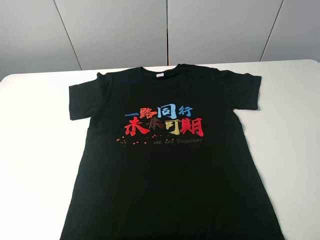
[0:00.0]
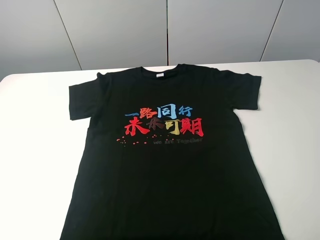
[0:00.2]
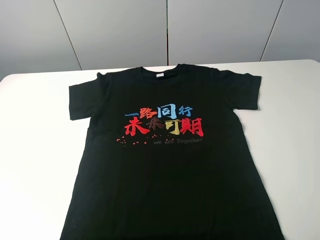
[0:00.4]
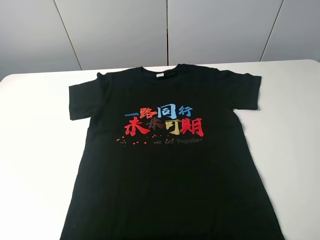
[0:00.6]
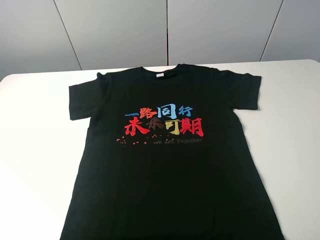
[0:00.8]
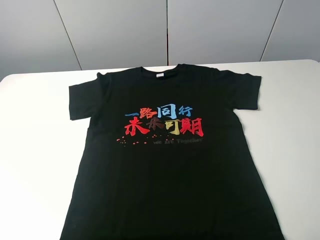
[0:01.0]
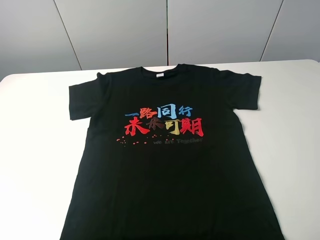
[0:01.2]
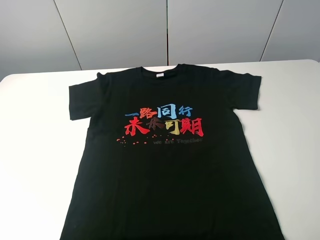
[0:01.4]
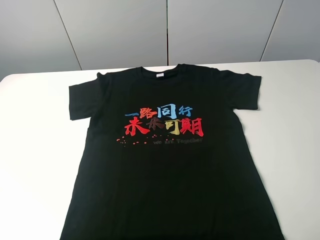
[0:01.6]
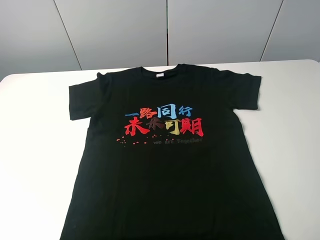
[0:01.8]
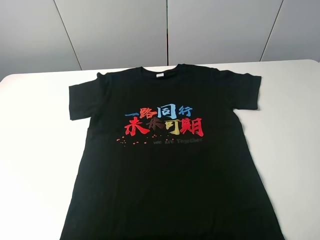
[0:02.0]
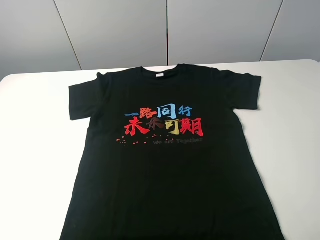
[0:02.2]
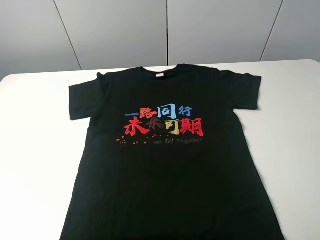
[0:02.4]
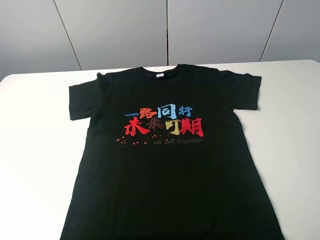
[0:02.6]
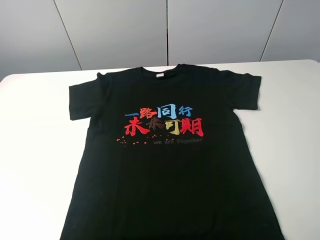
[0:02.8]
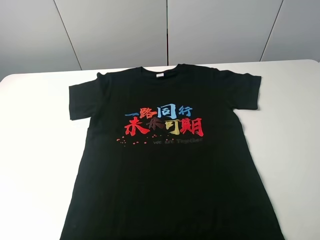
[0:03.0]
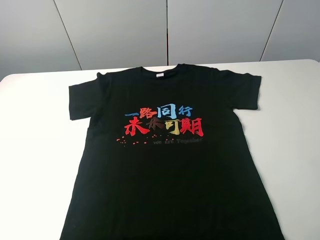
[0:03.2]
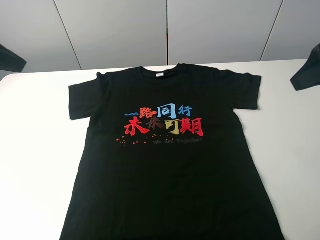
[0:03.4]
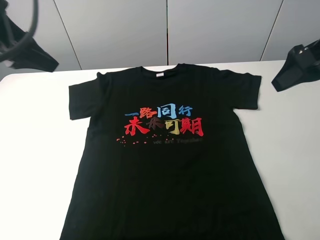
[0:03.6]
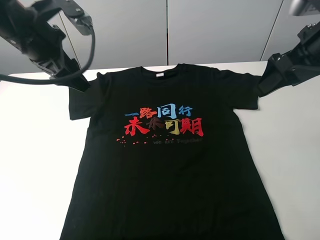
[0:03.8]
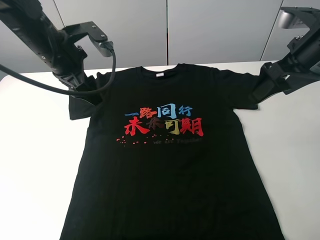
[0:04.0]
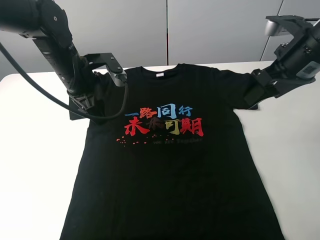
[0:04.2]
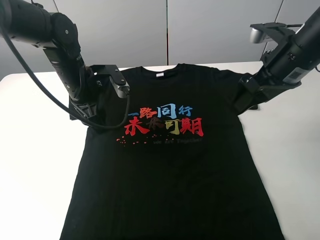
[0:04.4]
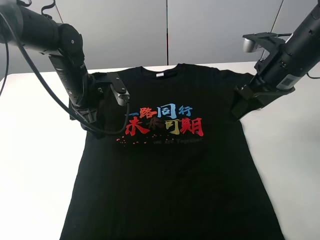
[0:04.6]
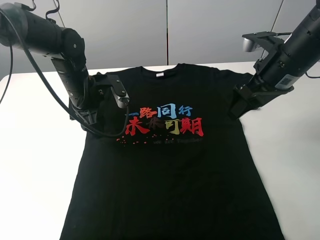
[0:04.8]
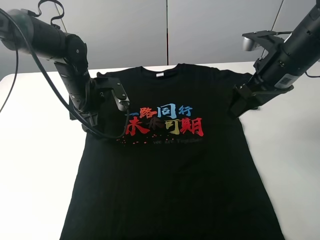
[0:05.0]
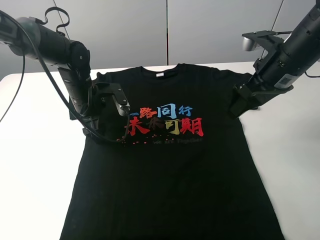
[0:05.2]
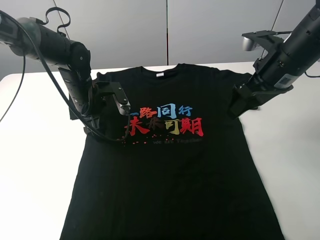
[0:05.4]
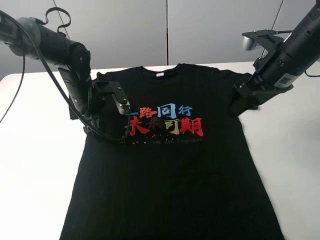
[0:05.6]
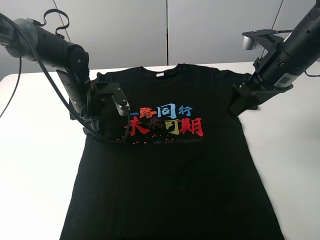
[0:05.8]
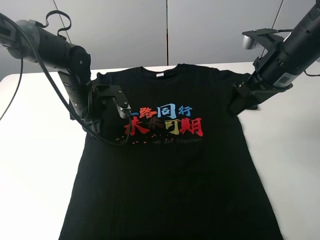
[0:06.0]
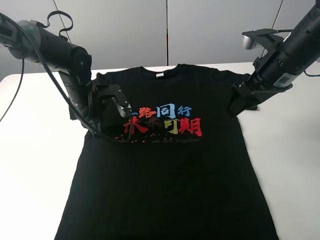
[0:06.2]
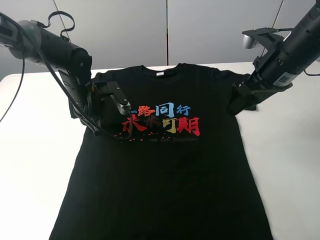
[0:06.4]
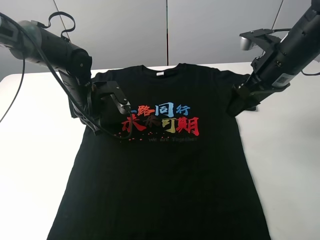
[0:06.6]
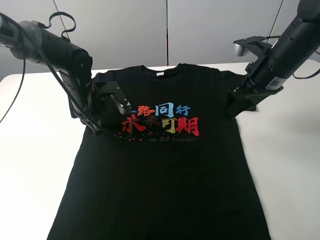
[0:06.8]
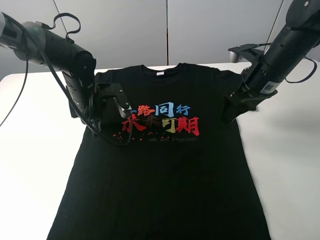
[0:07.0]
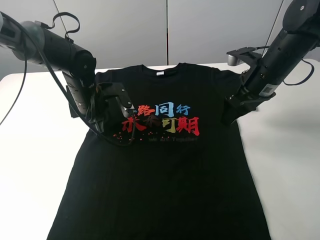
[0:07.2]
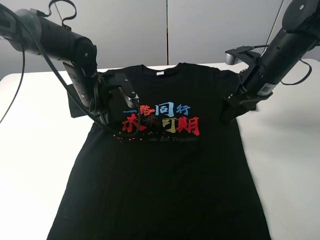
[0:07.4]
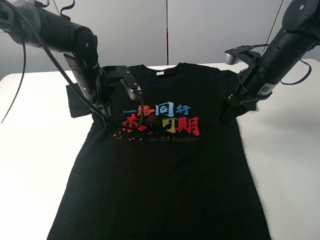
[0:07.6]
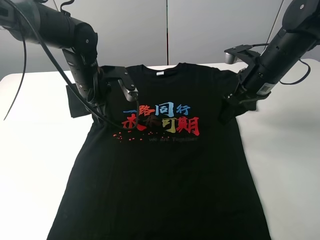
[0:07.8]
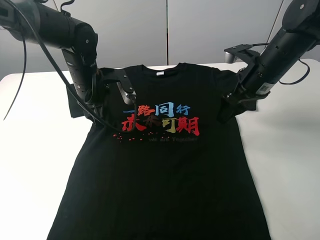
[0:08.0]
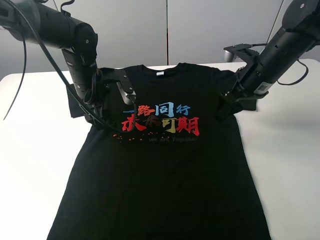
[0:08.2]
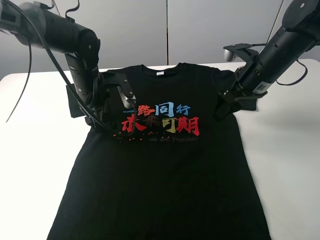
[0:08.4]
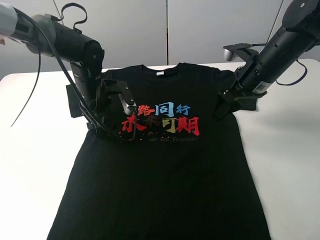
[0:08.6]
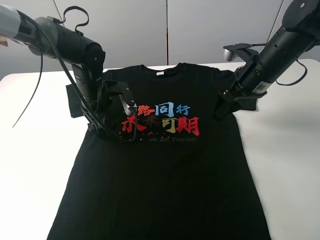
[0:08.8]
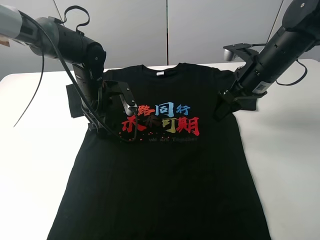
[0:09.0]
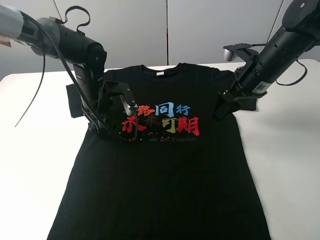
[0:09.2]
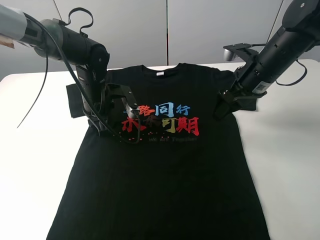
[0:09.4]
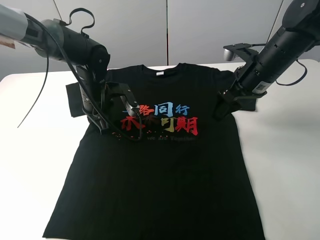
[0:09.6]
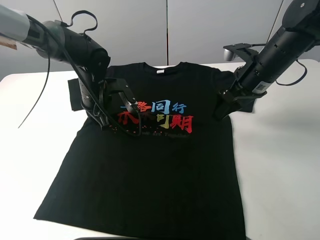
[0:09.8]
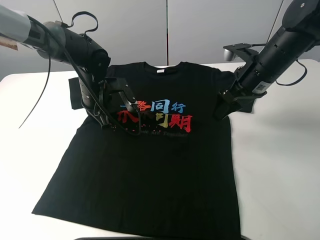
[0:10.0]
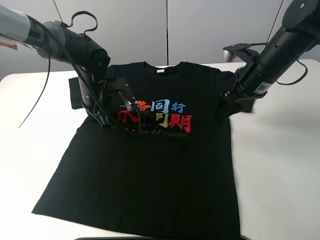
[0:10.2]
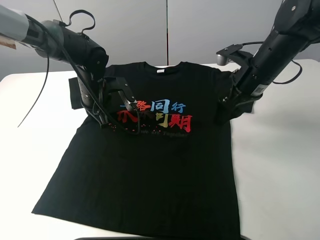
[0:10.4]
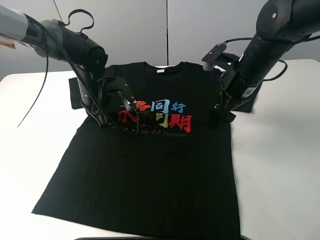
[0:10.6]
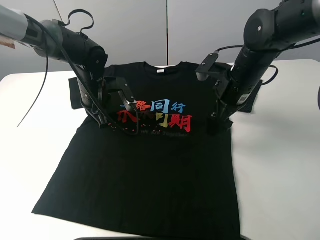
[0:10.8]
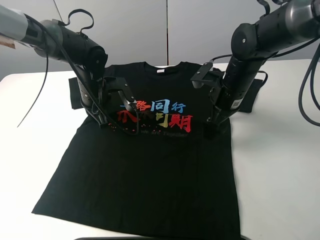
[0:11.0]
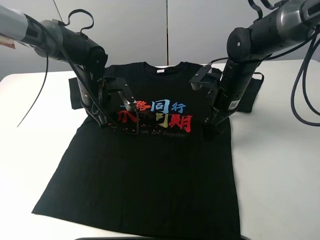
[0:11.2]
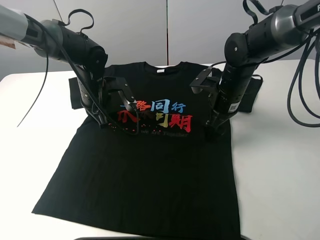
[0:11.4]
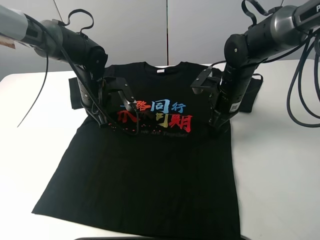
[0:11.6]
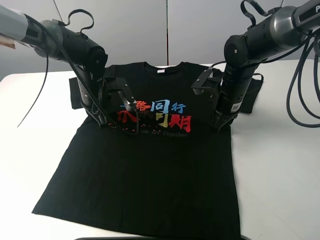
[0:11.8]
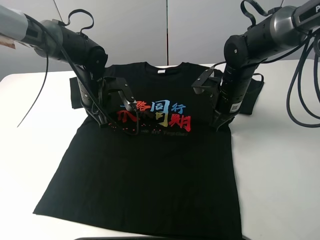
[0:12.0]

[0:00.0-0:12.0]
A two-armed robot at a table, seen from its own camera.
Task of the whole recording: fold the clothes on the table.
Step, 0:00.0 to 0:09.6: Lift the black T-shirt with the left gripper.
0:00.0 to 0:01.6: The two grippers keep their place.
0:03.0 to 0:04.4: The right gripper heads forward and downward, covering roughly 20 cm; the left gripper goes some 35 cm forward, downward and to the right.
0:04.4 to 0:06.0: The left gripper shifts some 5 cm downward, and closes up.
0:06.0 to 0:07.6: The left gripper shifts by roughly 5 cm. Meanwhile the right gripper shifts by some 5 cm.
0:07.6 to 0:09.0: The left gripper opens up.
0:09.0 to 0:10.4: The left gripper closes its fingers.
0:10.4 to 0:12.0: The right gripper goes about 5 cm downward, and closes its fingers.

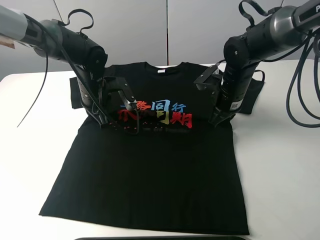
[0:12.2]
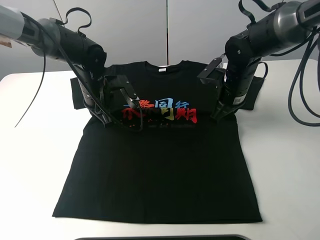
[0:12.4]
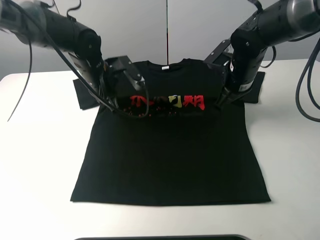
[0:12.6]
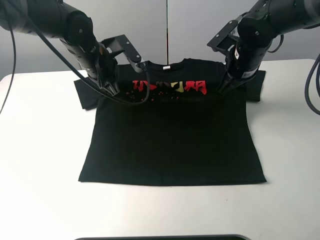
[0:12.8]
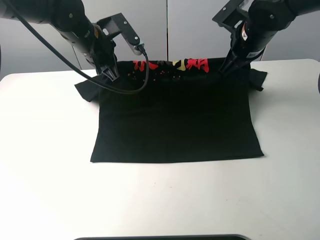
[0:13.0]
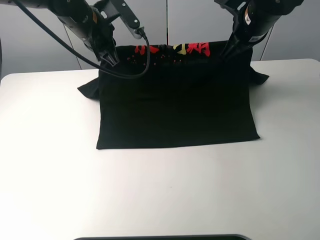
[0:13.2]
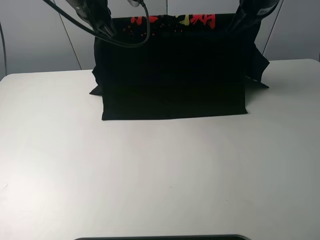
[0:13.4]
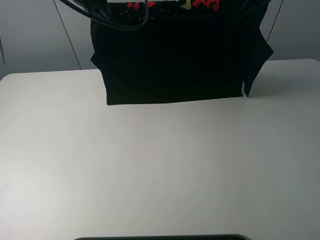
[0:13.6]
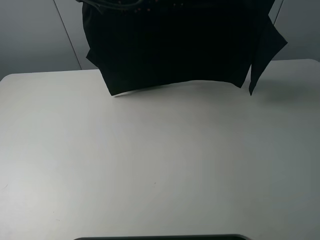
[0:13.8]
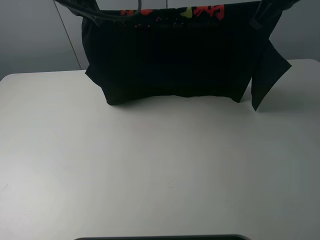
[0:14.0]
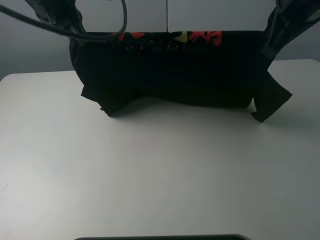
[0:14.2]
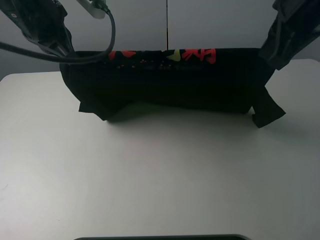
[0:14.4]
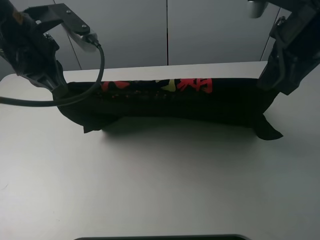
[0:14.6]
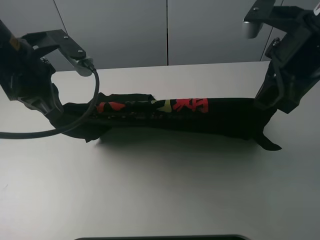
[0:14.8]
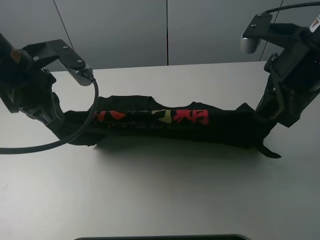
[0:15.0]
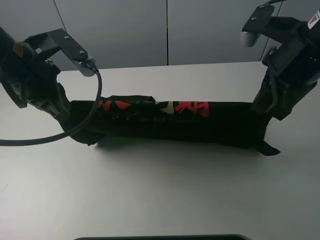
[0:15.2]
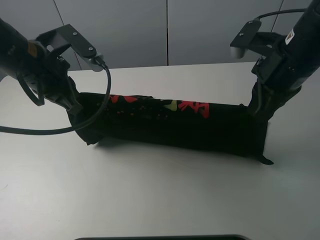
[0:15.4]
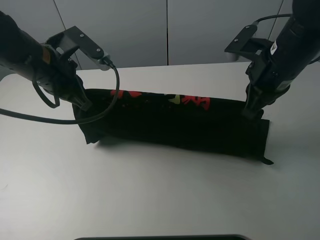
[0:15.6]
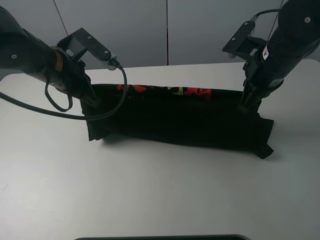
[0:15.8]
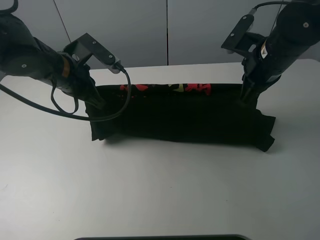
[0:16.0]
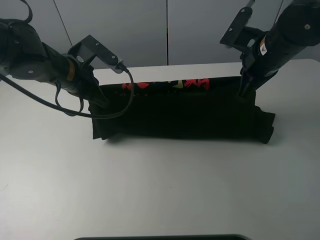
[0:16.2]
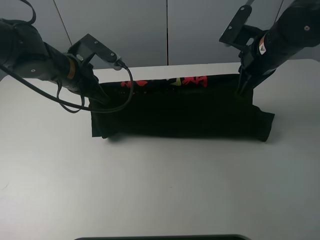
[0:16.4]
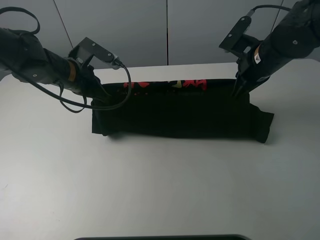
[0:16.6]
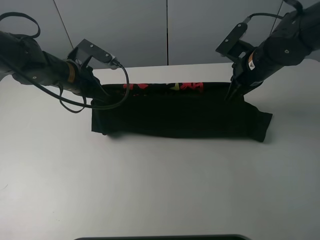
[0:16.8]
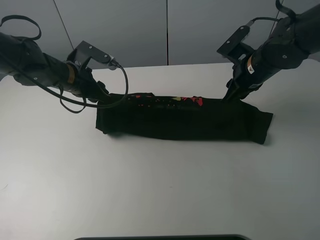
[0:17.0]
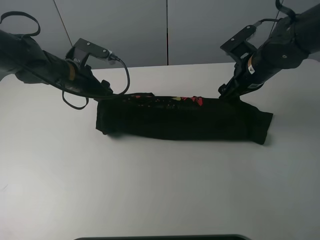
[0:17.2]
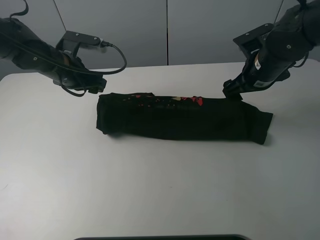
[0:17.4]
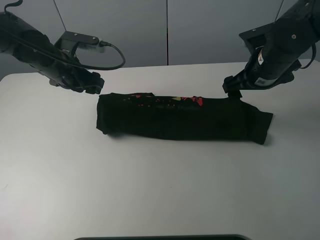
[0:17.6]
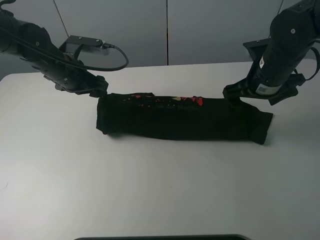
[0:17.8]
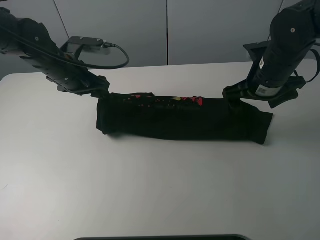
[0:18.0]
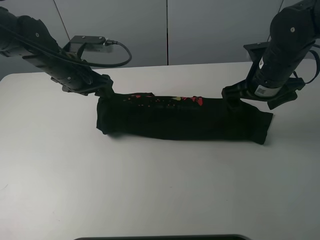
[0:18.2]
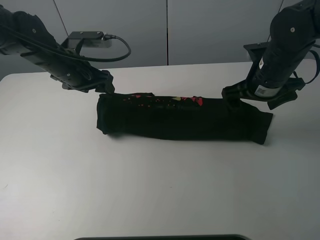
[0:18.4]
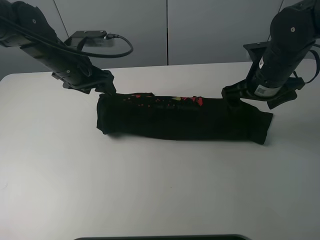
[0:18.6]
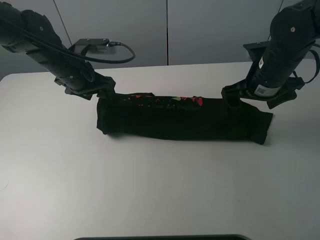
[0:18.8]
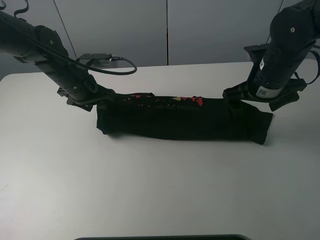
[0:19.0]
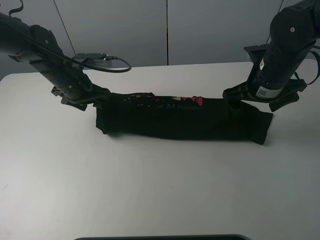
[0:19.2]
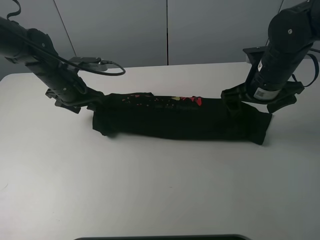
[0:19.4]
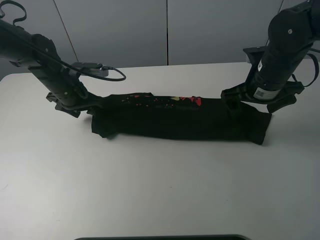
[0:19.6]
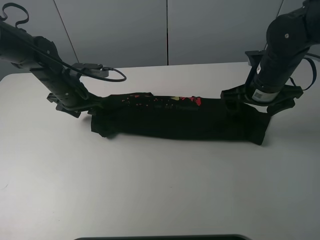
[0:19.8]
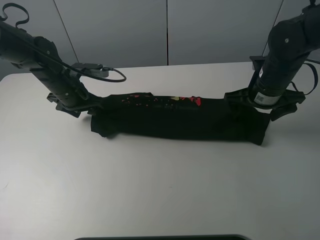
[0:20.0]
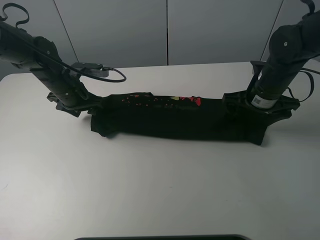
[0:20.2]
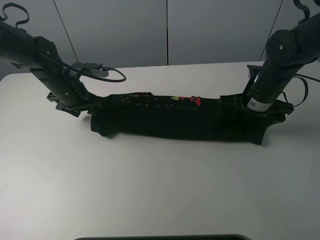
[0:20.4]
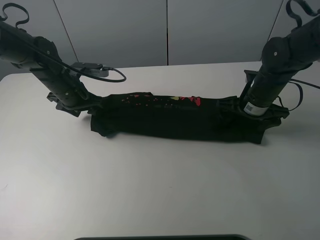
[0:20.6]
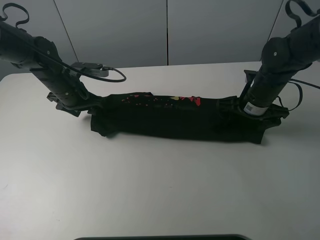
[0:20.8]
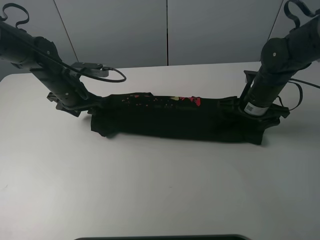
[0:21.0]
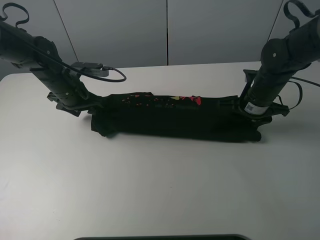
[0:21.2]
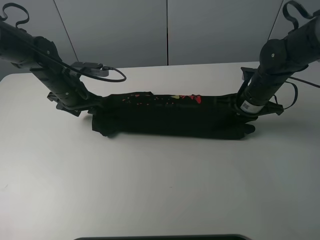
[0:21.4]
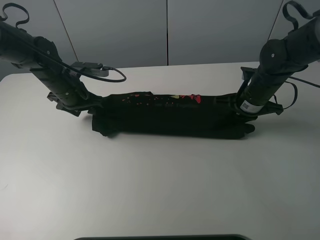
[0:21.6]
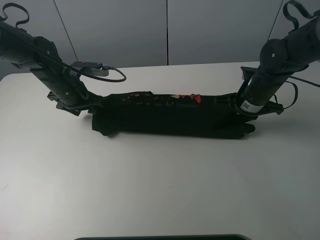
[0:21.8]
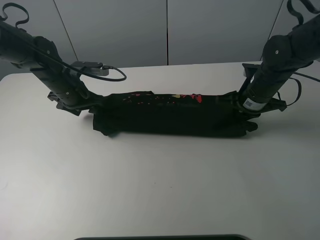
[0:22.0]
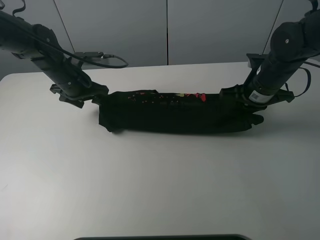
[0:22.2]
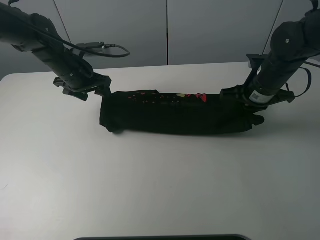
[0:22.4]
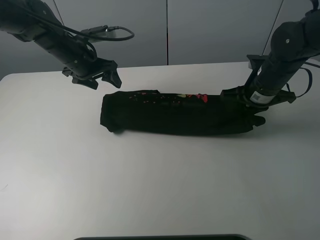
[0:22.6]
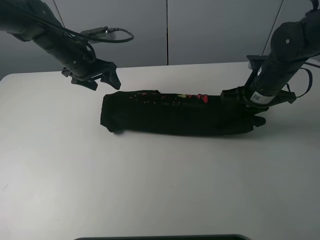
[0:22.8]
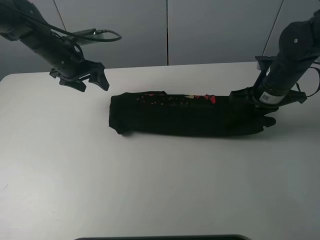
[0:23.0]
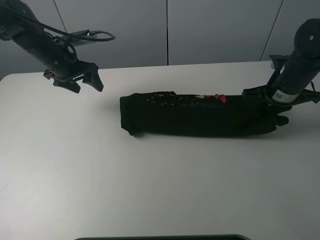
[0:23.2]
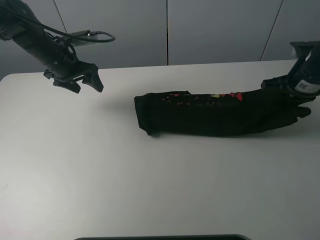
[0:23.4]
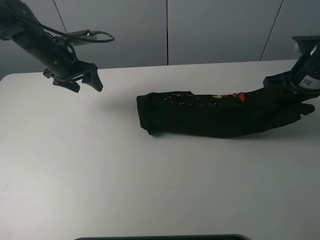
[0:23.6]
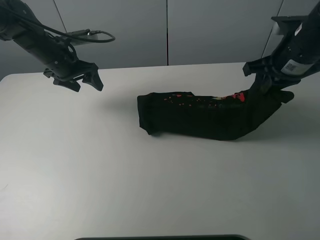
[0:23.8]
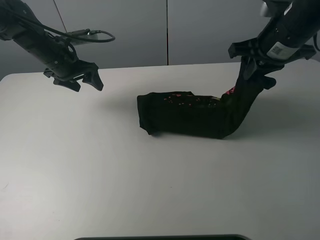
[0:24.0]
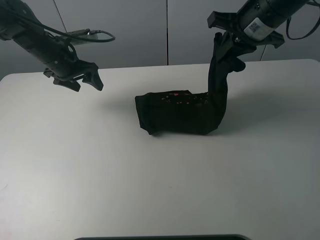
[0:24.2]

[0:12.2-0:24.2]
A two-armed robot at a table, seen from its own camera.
Task of the whole recording: fold the clothes on the table.
Step, 0:12.2 to 0:17.6: Fold the black T-shirt downward with the left gripper.
Step, 0:17.8 to 0:21.4: Grasp the black T-shirt with the right gripper.
0:12.2 to 0:13.8: Both grippers move upward, roughly 25 cm.
0:13.8 to 0:15.2: The right gripper heads backward and downward, covering about 15 cm. Meanwhile the left gripper heads backward, downward and to the left, covering about 20 cm.
0:15.2 to 0:16.6: The grippers both shift forward and downward by some 15 cm.
0:16.6 to 0:18.2: The right gripper opens its fingers, while the left gripper opens its fingers.
0:18.2 to 0:19.8: The left gripper heads downward, covering about 5 cm.
0:19.8 to 0:21.2: The right gripper shifts about 5 cm downward, and closes.
0:21.2 to 0:22.6: The right gripper closes up. The left gripper heads upward, covering some 5 cm.
0:22.6 to 0:24.2: The right gripper is displaced upward by some 15 cm.
